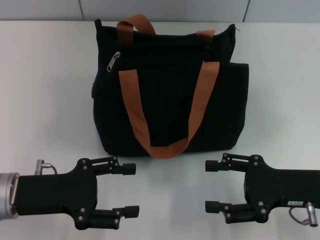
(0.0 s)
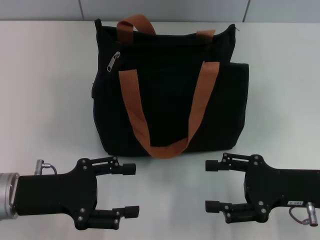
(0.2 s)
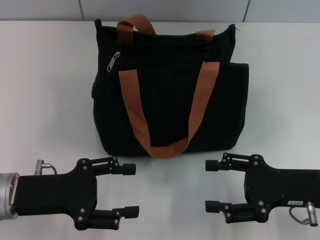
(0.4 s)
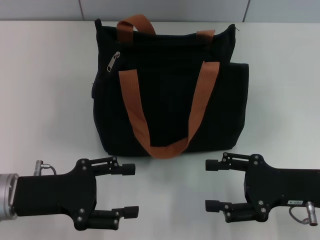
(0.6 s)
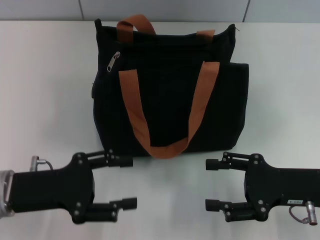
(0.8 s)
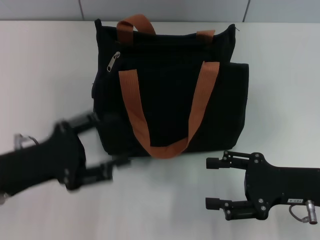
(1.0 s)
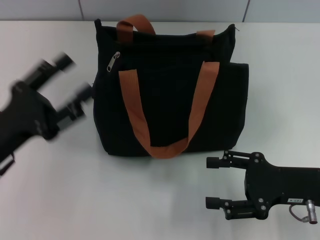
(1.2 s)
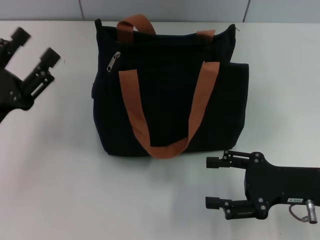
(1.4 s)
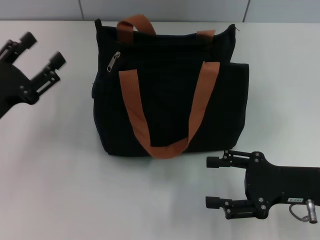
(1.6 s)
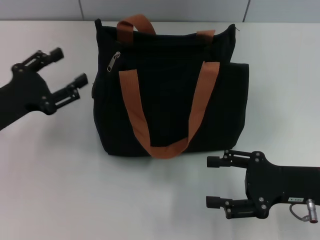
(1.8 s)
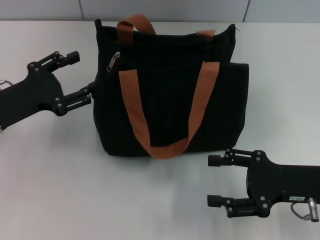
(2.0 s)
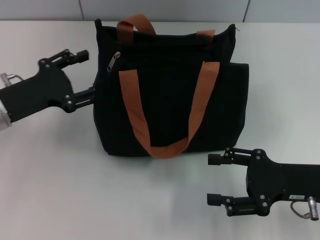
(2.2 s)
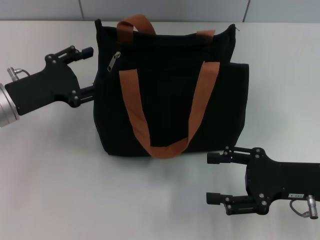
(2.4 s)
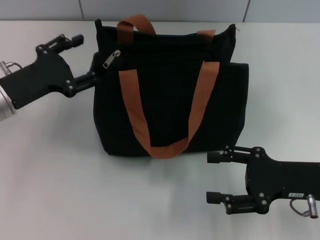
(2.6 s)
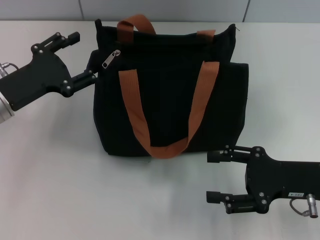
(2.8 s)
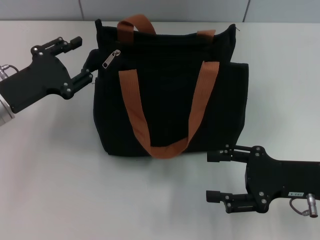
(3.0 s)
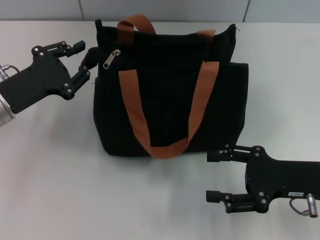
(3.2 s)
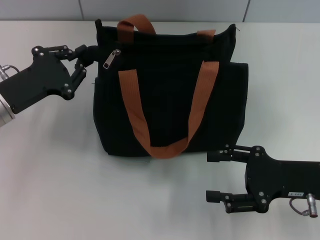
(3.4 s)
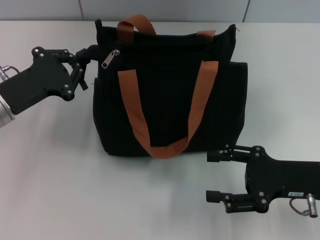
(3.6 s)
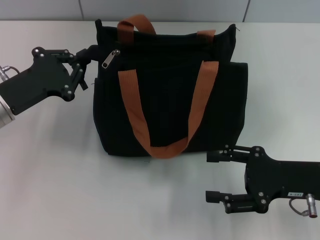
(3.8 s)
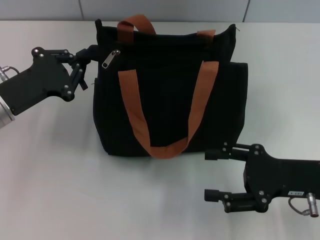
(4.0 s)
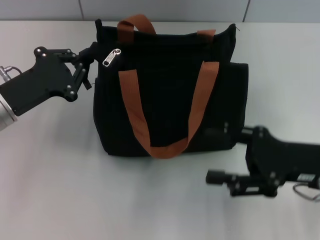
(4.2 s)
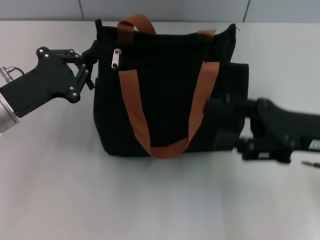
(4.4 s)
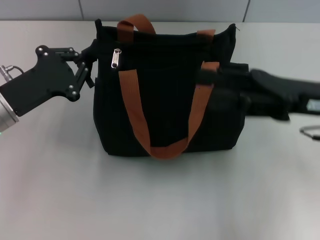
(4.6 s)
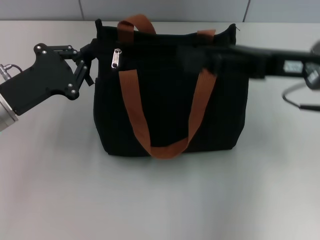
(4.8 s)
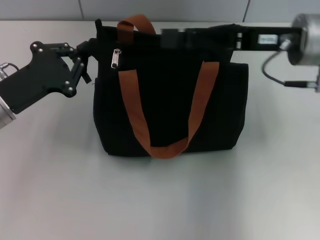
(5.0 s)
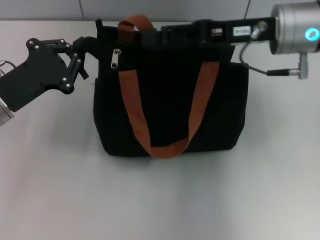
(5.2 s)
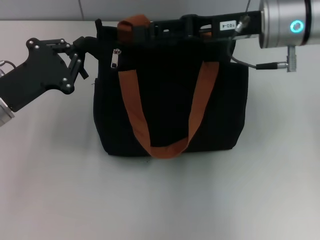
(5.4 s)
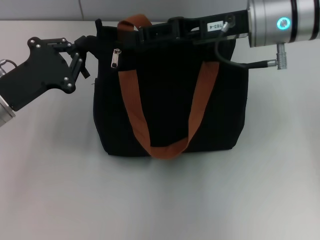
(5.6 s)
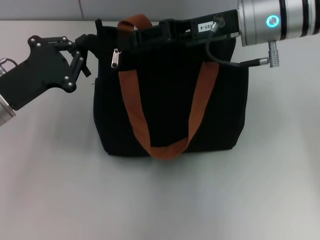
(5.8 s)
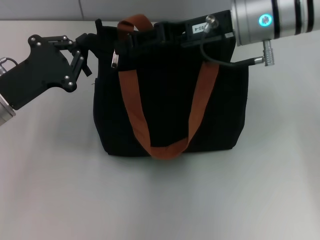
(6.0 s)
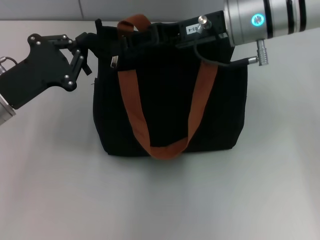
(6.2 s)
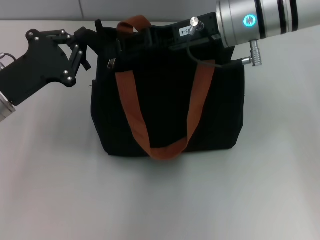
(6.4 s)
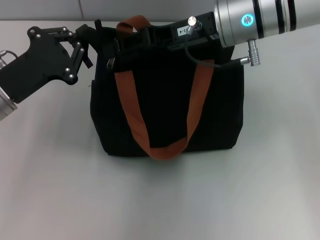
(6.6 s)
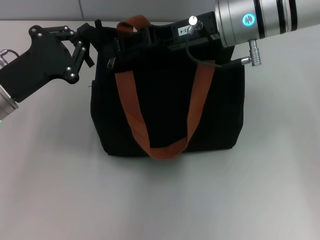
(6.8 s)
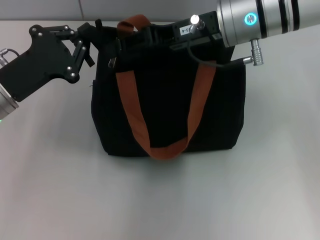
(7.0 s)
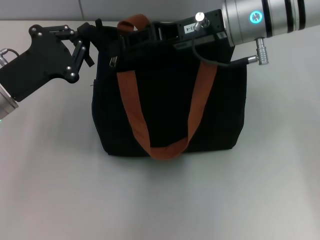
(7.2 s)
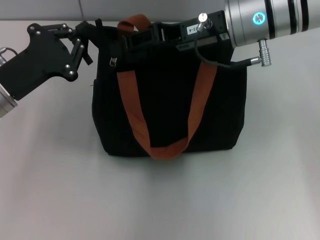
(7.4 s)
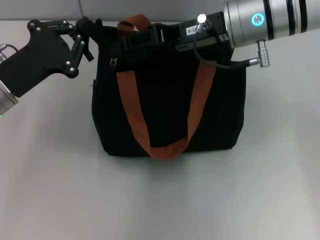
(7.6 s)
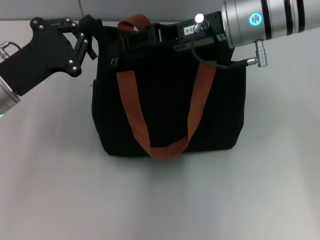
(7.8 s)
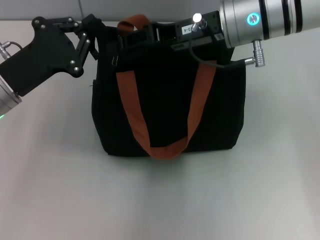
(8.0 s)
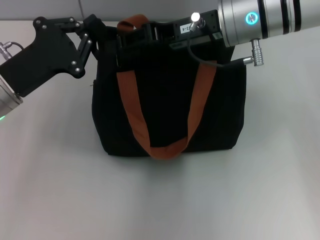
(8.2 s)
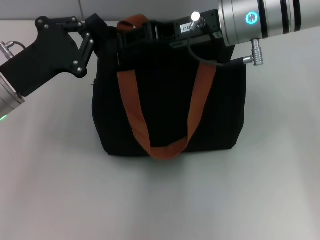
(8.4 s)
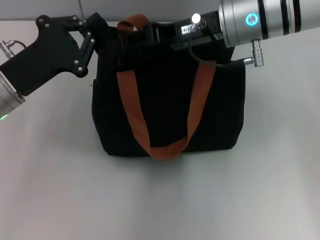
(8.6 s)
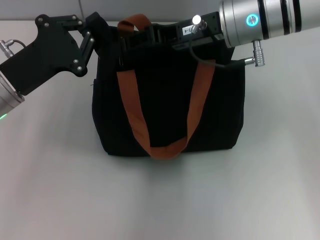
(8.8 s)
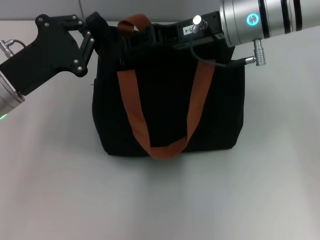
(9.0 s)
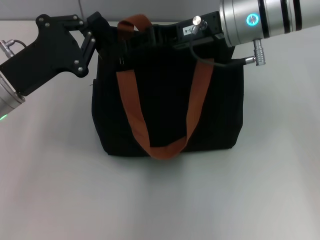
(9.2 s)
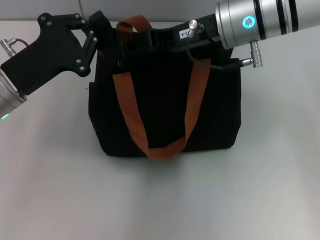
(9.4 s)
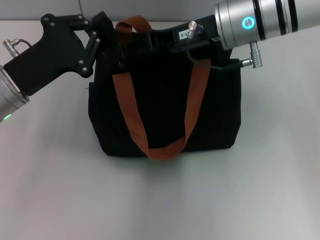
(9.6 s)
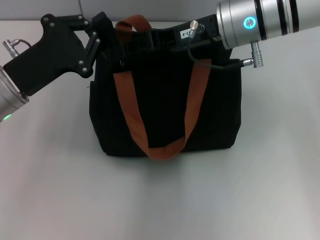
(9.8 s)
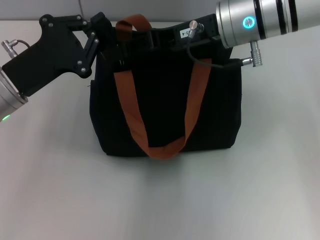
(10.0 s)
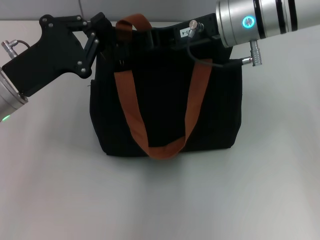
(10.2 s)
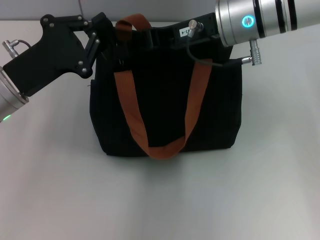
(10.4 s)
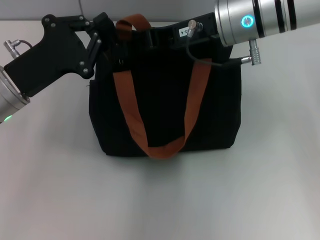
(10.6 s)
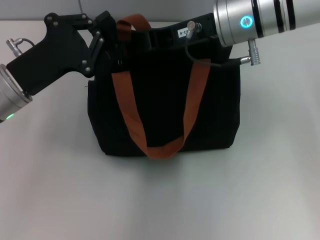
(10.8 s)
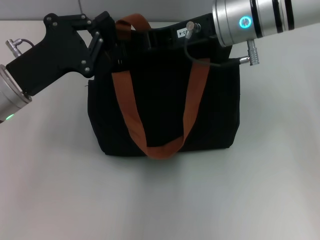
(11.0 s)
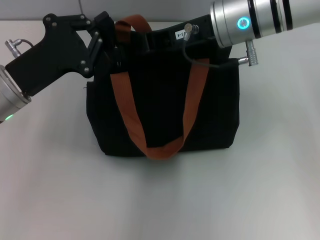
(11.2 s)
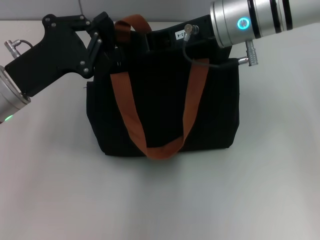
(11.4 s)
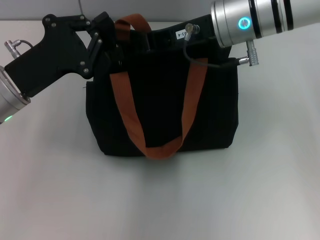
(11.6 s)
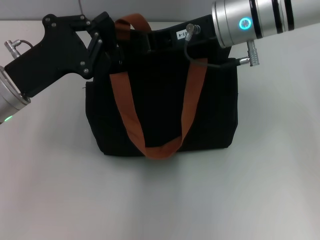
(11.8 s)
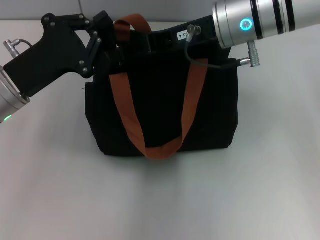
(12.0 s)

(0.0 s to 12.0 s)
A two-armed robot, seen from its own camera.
0.0 s - 1.6 s: The left gripper ends up roughly 5 cm from where it was.
1.6 s - 3.0 s: The left gripper changes place by some 5 cm.
3.0 s - 4.4 s: The right gripper travels upward by approximately 5 cm, while the left gripper closes up.
4.4 s - 6.0 s: The right gripper moves forward, to the left and upward, some 20 cm.
6.0 s - 9.0 s: There are only small adjustments of the grippers.
9.0 s - 10.4 s: The two grippers keep their place.
10.4 s - 12.0 s: Both grippers stay put.

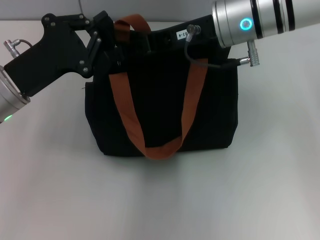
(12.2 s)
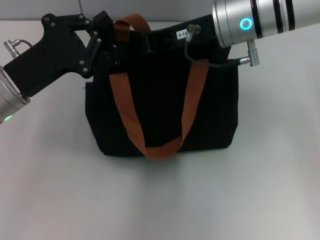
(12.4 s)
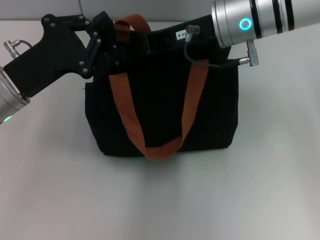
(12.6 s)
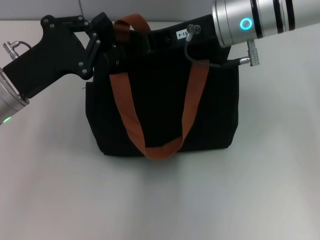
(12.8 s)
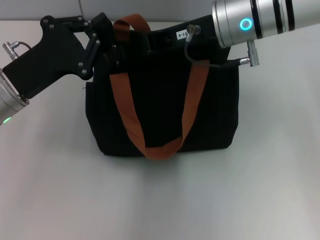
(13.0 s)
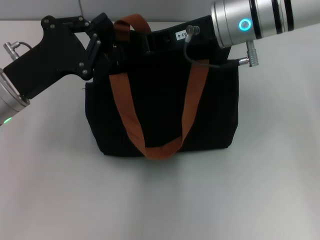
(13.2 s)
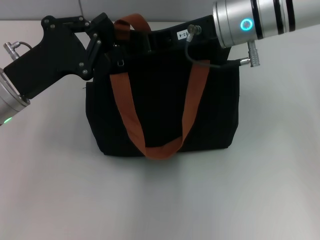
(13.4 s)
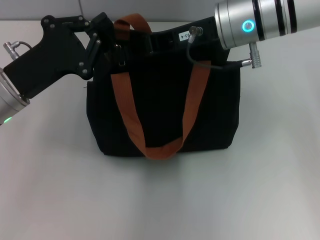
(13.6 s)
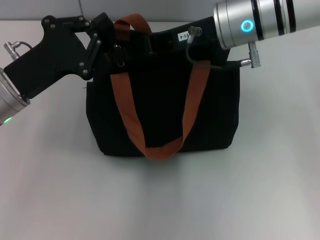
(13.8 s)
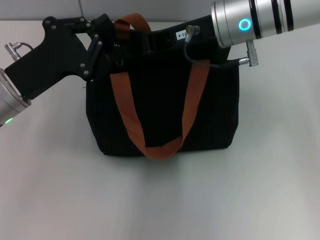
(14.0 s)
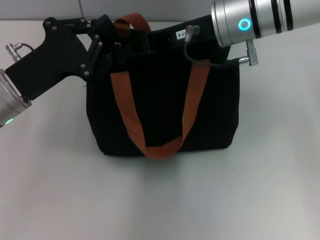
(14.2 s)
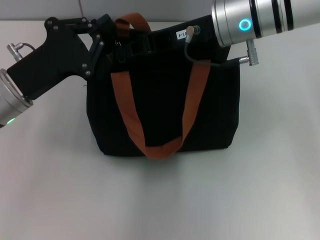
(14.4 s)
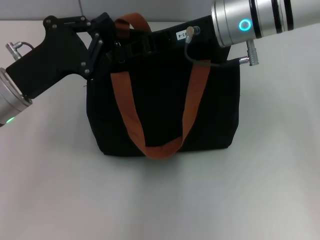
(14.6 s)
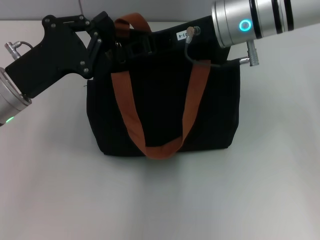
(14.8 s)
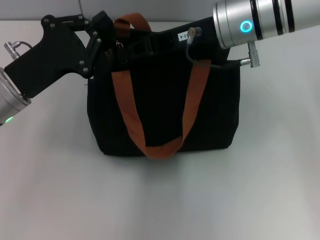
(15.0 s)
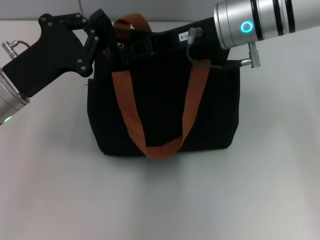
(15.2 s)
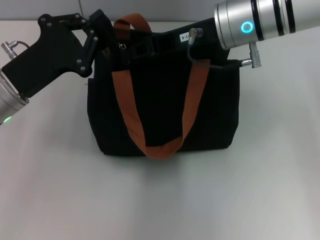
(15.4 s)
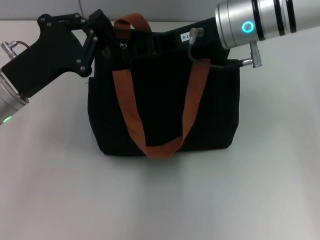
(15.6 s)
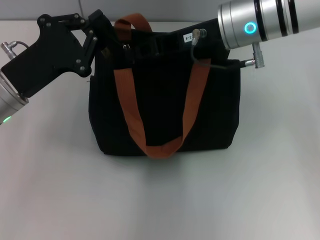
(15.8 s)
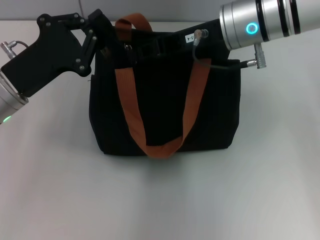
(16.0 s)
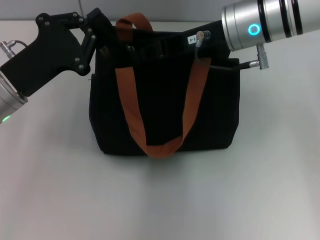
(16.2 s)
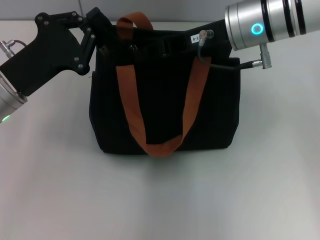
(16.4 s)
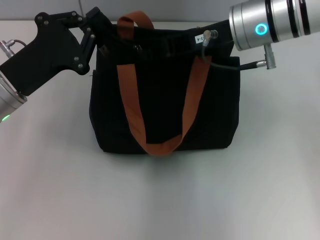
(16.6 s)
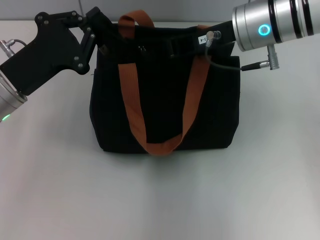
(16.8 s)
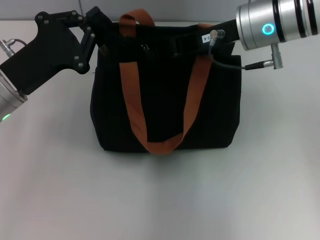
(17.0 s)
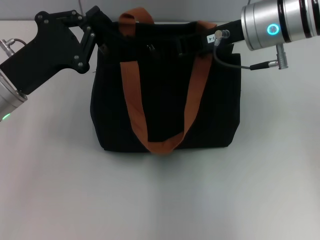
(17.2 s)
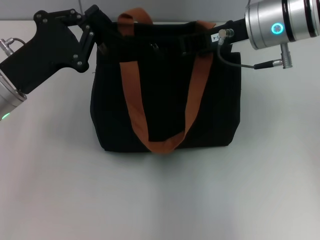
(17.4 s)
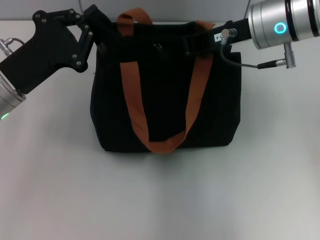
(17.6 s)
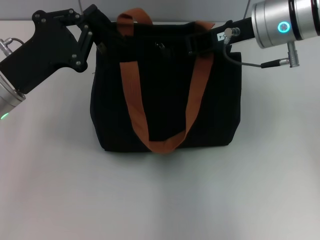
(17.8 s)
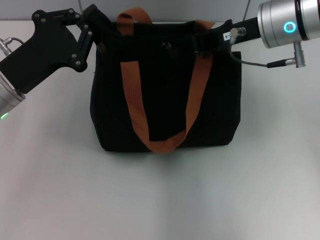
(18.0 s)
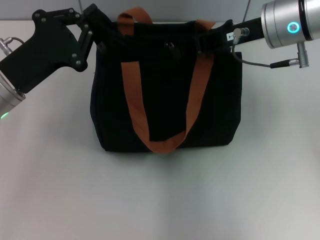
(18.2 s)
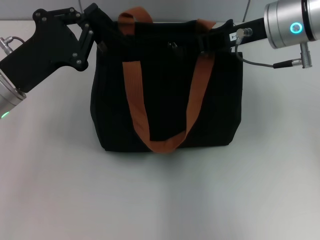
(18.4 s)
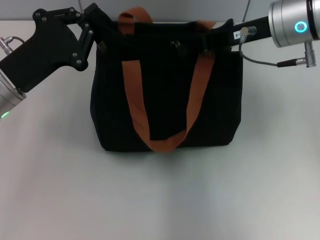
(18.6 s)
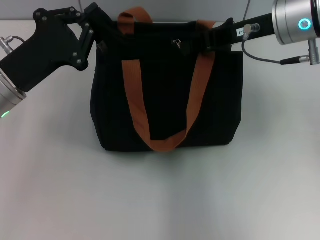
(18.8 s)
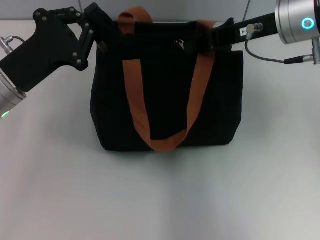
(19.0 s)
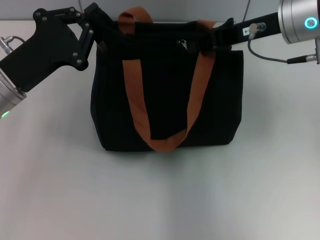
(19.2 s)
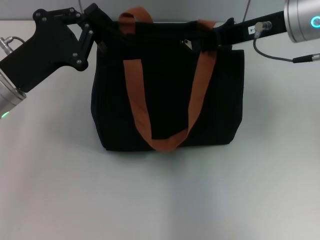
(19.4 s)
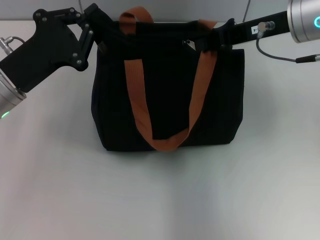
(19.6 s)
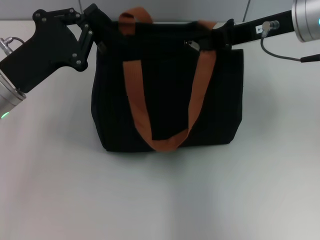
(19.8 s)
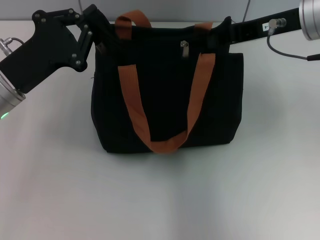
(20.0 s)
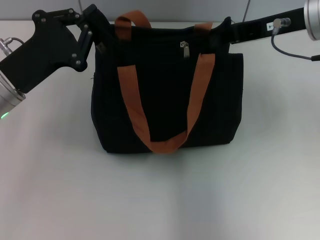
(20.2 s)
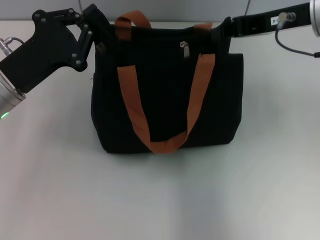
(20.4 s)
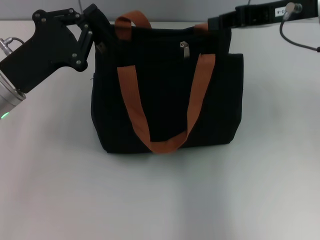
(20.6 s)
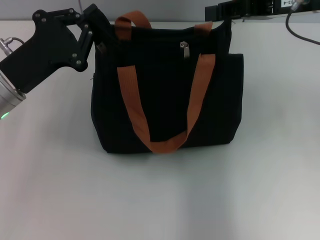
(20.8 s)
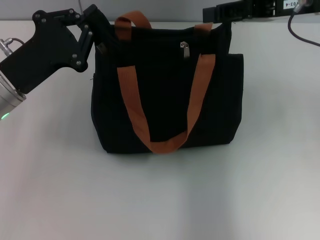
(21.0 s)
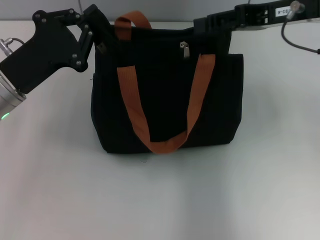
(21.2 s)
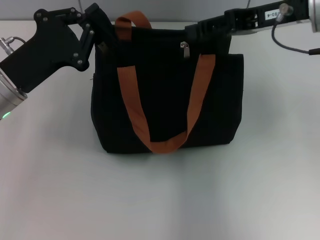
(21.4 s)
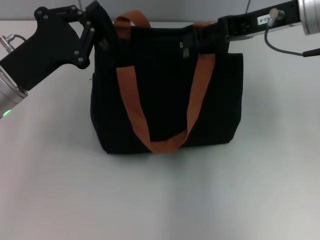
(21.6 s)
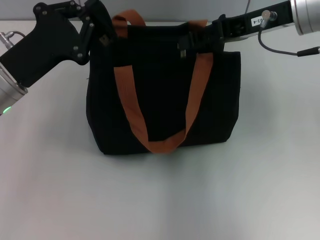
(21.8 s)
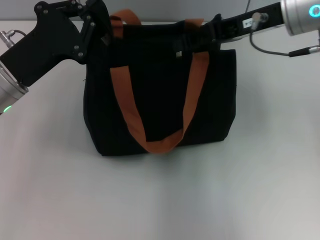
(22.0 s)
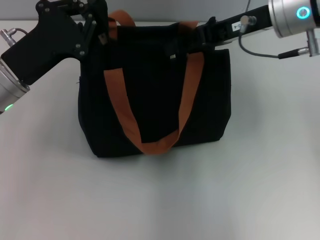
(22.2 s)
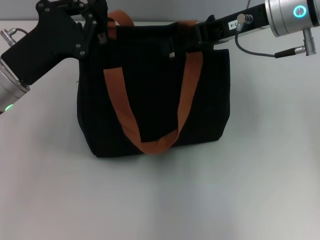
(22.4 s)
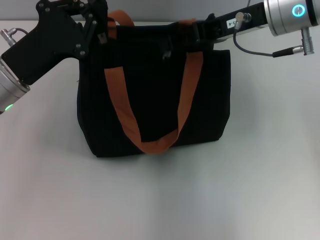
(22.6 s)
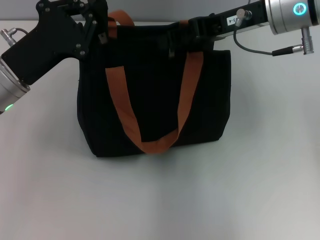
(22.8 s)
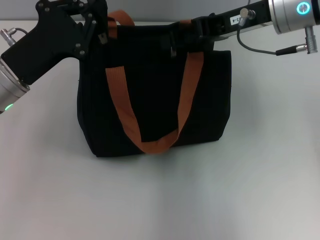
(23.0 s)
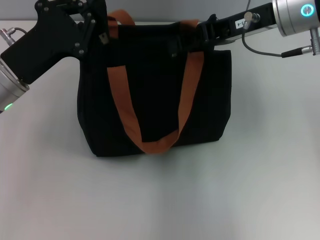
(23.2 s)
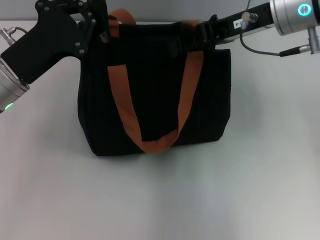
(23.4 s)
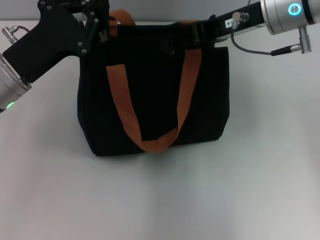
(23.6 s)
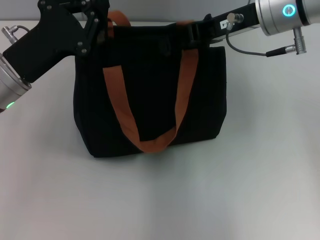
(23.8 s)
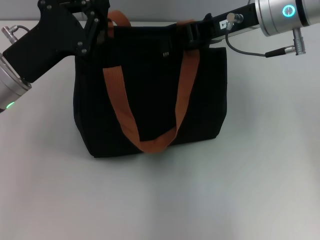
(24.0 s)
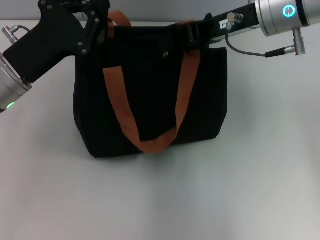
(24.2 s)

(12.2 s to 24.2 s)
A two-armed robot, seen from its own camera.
12.2 s - 15.2 s: The two grippers keep their place.
15.2 s - 18.2 s: The grippers move only a little.
18.2 s - 19.8 s: The grippers stay close to where they were, moving slightly.
19.8 s - 21.2 s: The right gripper opens.
21.2 s - 22.6 s: The right gripper goes about 5 cm to the left.
22.6 s - 24.2 s: Both grippers stay put.
